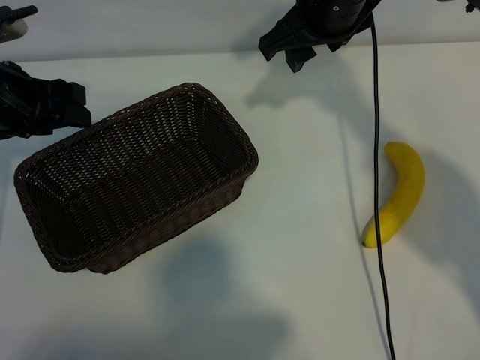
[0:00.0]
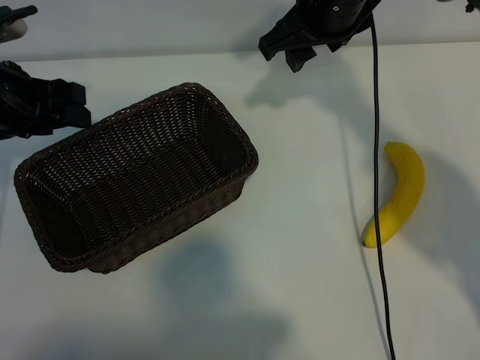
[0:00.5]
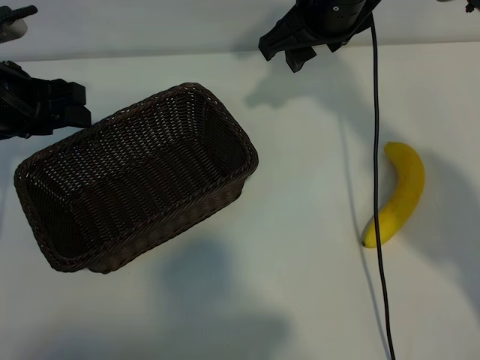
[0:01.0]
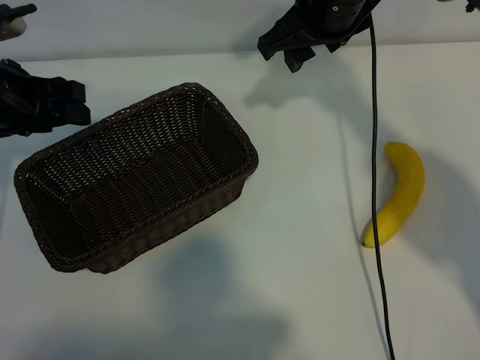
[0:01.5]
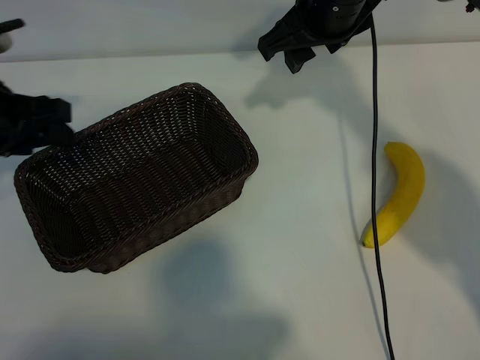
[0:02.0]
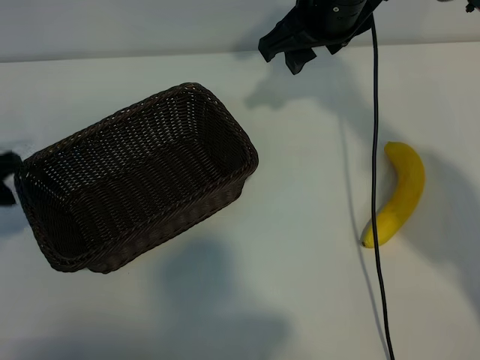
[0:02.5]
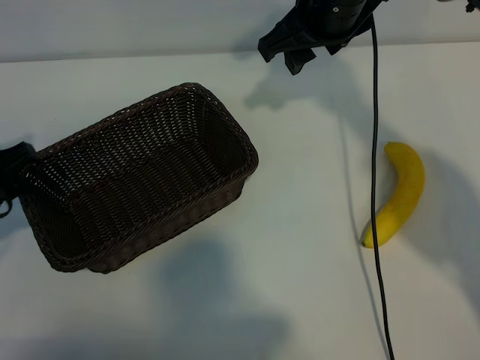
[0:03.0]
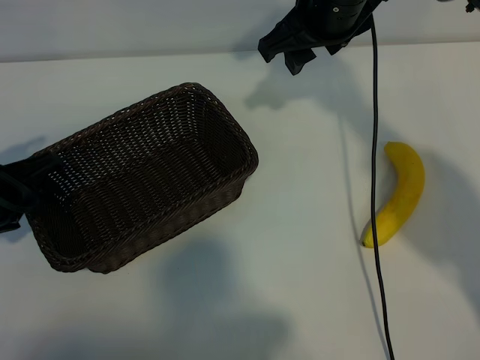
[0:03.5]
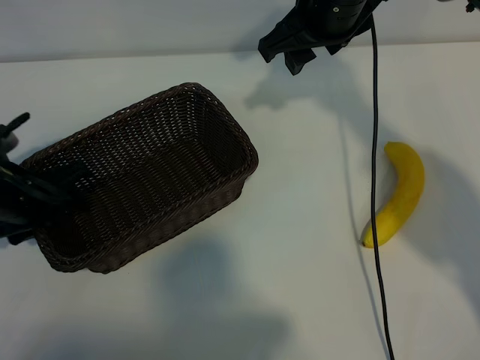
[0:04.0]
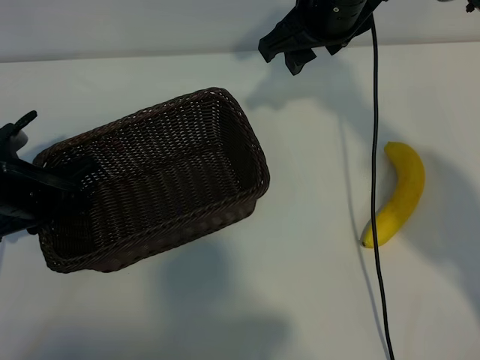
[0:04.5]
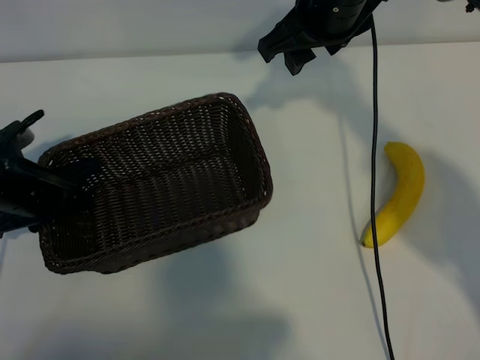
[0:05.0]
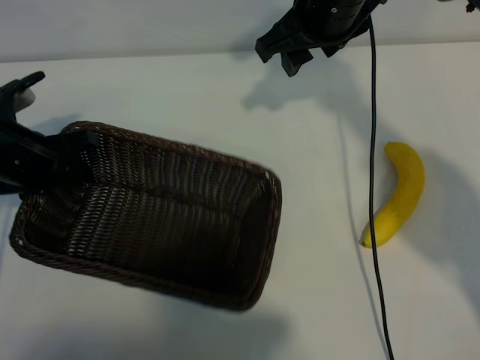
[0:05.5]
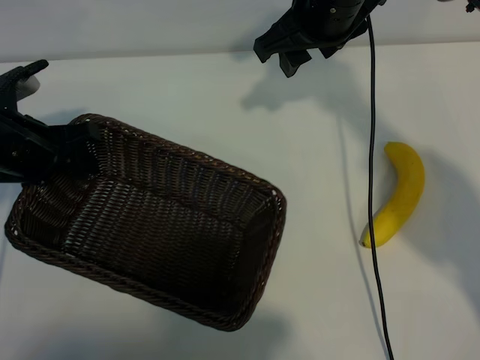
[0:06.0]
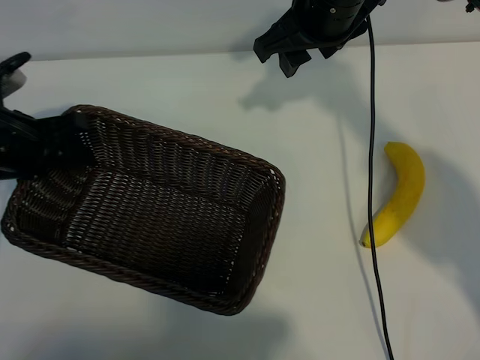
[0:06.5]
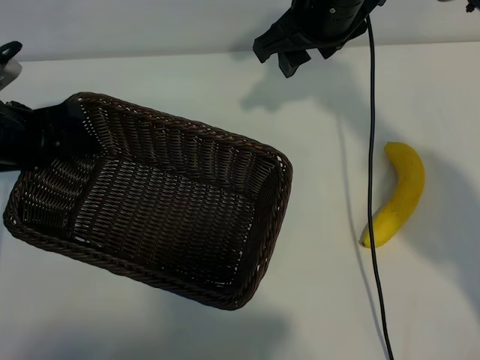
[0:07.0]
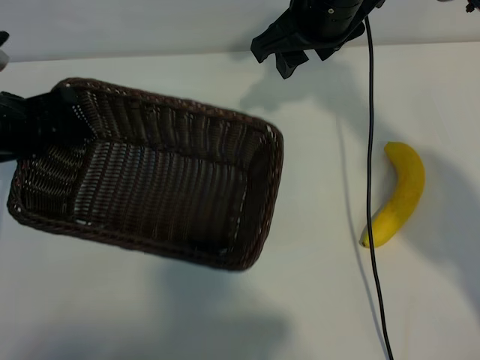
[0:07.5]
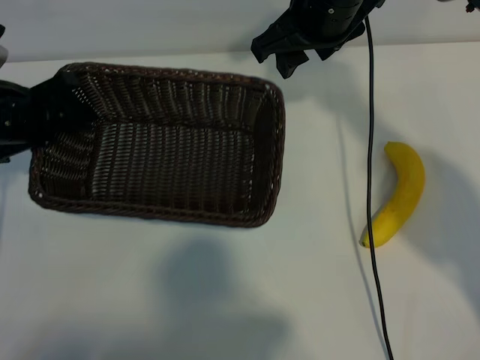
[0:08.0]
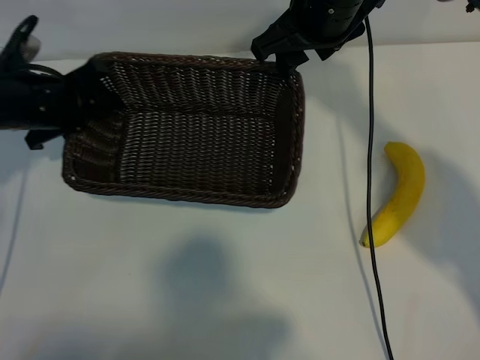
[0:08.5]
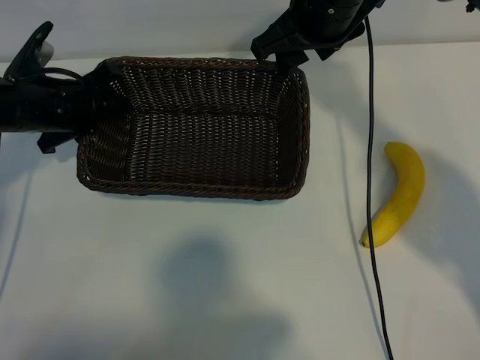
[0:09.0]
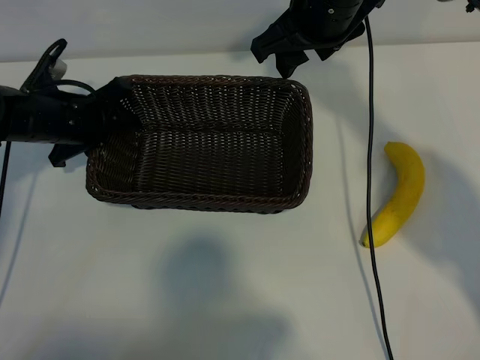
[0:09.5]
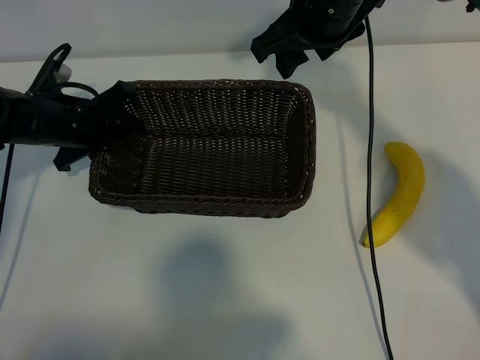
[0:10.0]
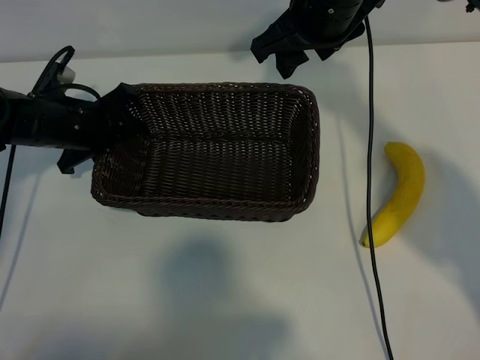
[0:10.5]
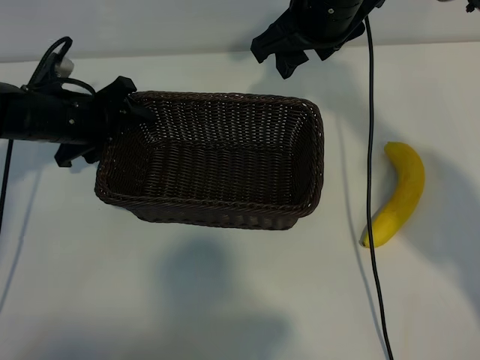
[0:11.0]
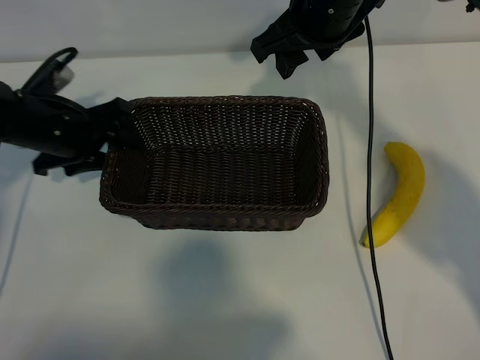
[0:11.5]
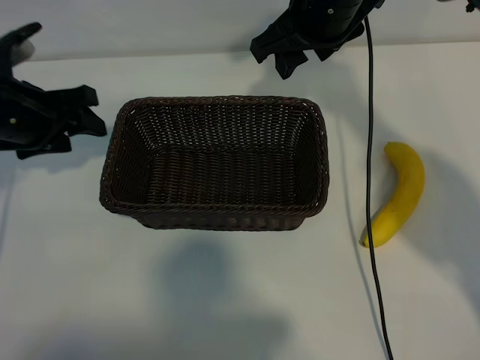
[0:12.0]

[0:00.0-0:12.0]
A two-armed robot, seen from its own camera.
Task of the whole recording: pick up the banana and put it into the basket.
Step, 0:01.5 to 0:04.5: Grasp the basket with the left gripper.
Step, 0:05.0 to 0:11.5: Place the basket in the center of the table with the left gripper.

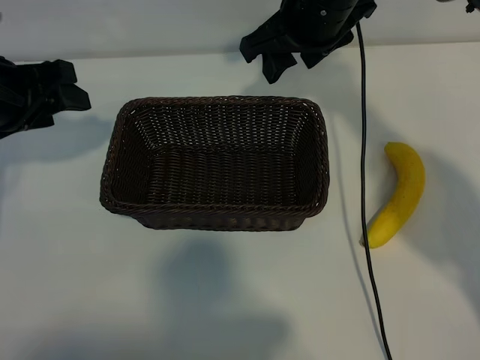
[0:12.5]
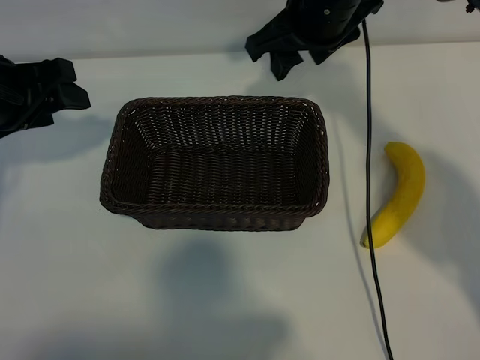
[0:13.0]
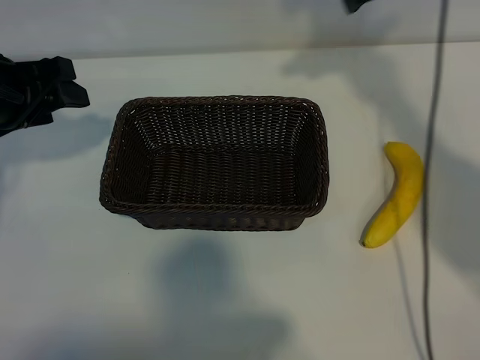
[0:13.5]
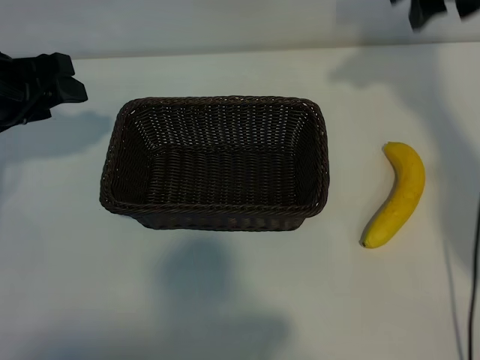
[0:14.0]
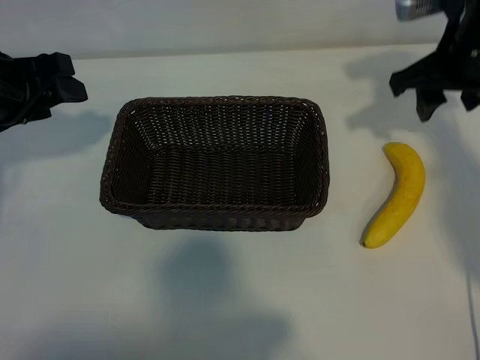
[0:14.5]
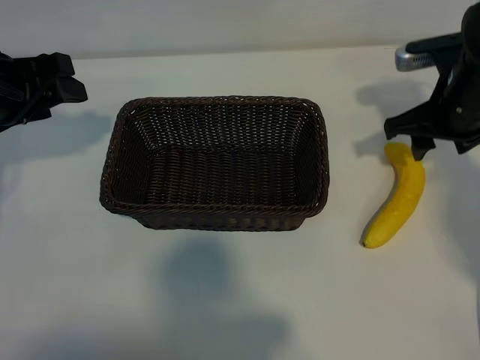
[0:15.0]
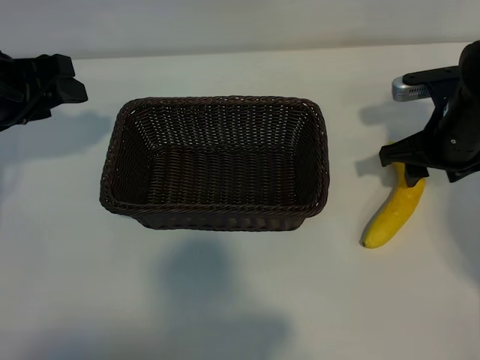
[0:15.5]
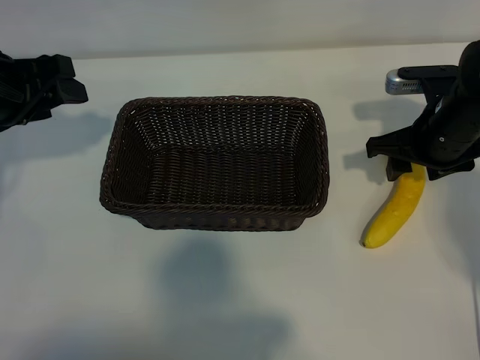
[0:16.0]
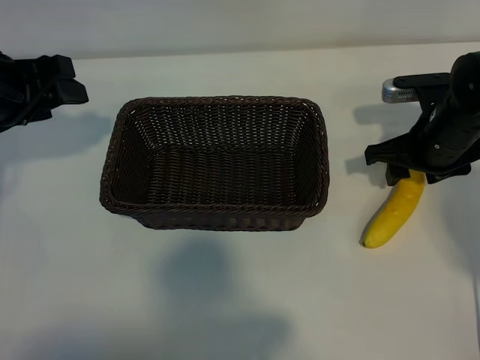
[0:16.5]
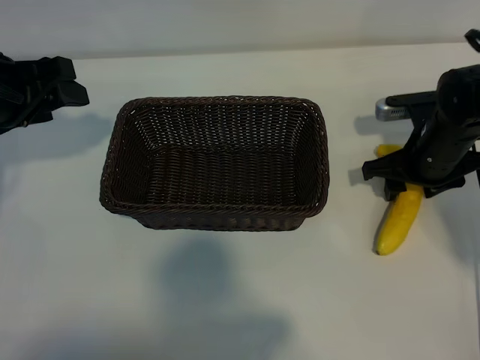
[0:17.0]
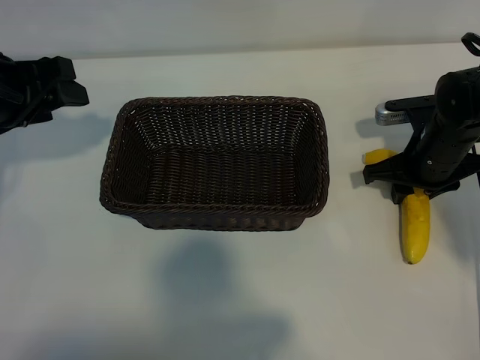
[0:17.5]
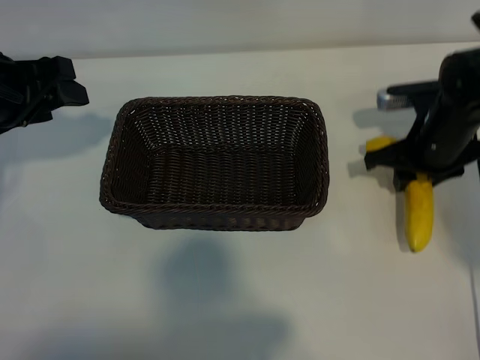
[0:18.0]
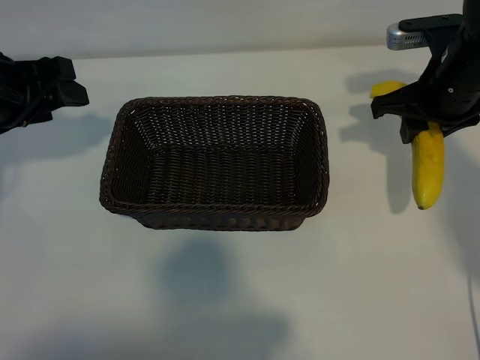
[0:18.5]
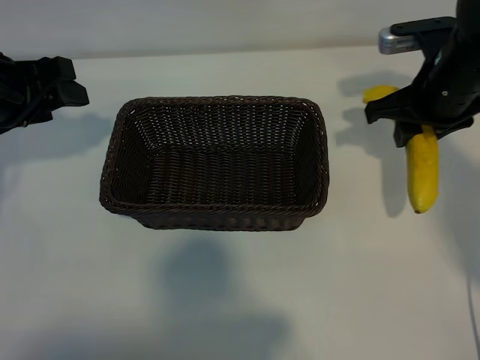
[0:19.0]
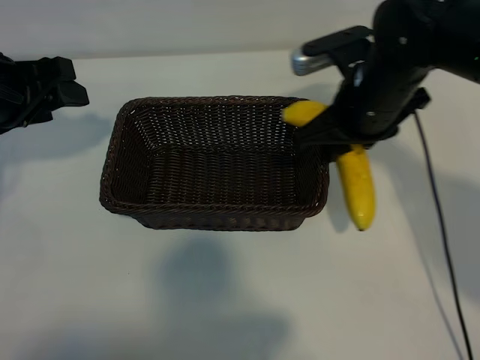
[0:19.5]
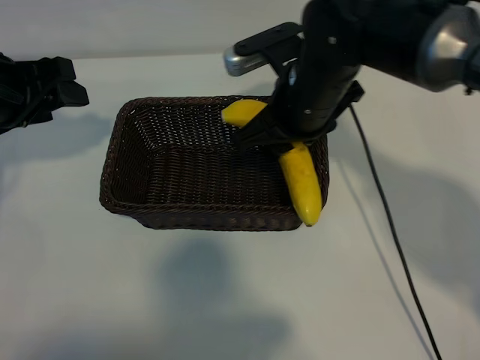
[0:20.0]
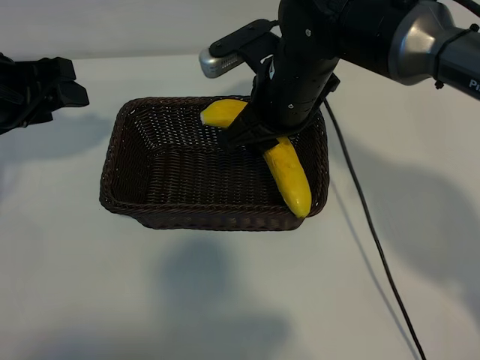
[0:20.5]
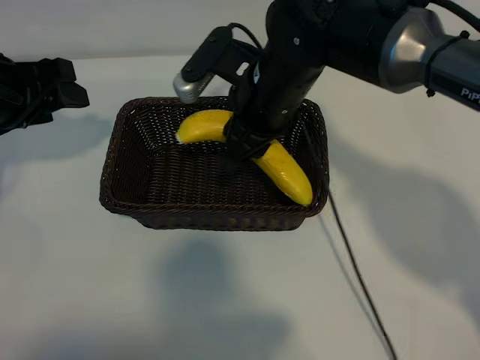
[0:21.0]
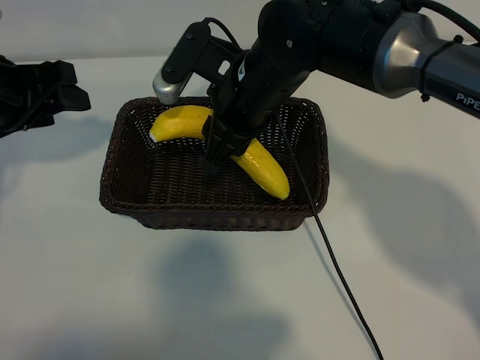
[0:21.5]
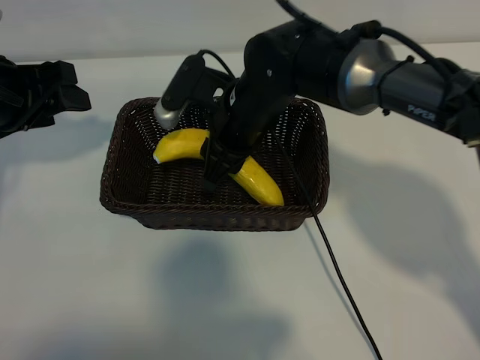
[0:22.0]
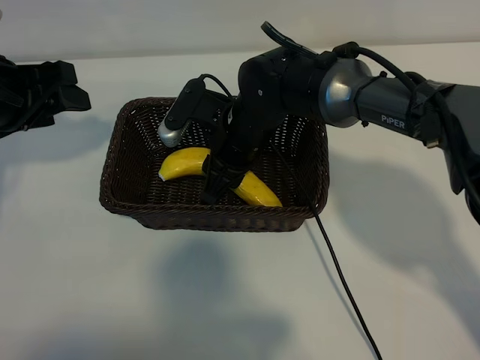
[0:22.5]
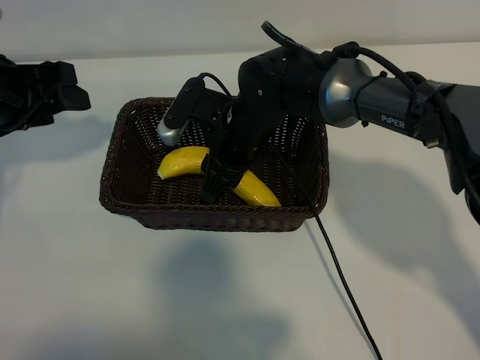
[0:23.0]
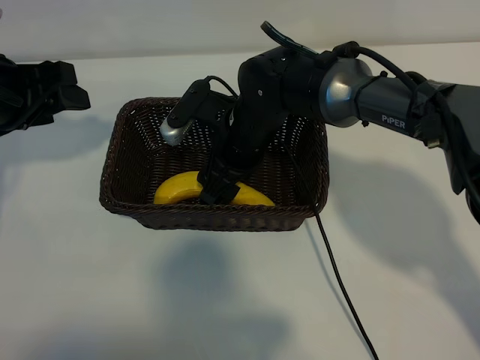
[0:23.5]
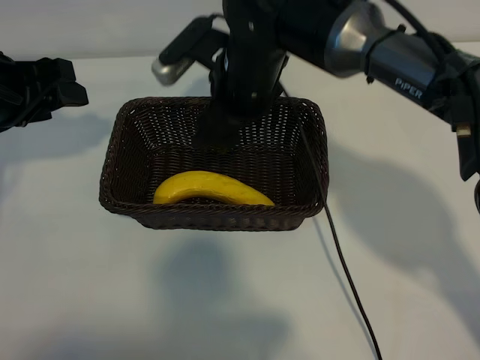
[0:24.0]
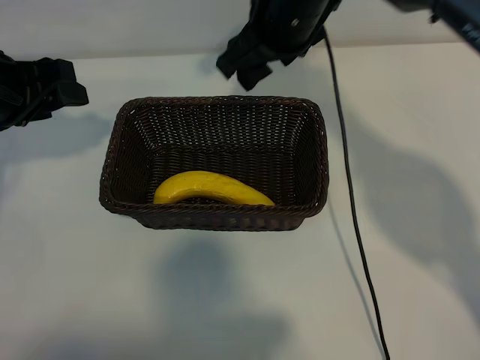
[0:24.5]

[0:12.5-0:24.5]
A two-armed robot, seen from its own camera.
Task of the whole recording: pick up the banana and put it into the basket.
Step, 0:12.5 to 0:17.5: Grasp the banana with right gripper.
Step, 0:18.0 to 0:23.5: Place the banana in the basket with right gripper.
